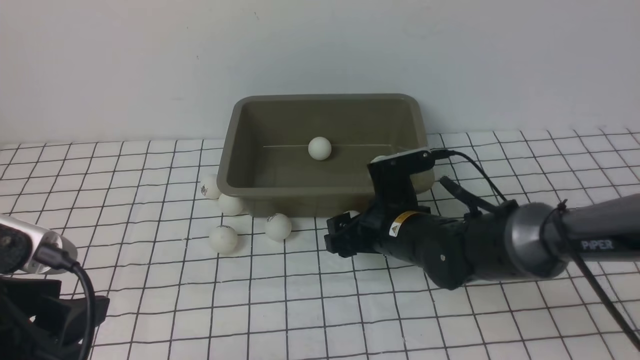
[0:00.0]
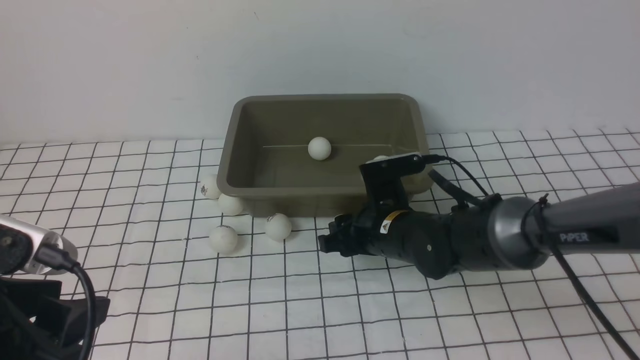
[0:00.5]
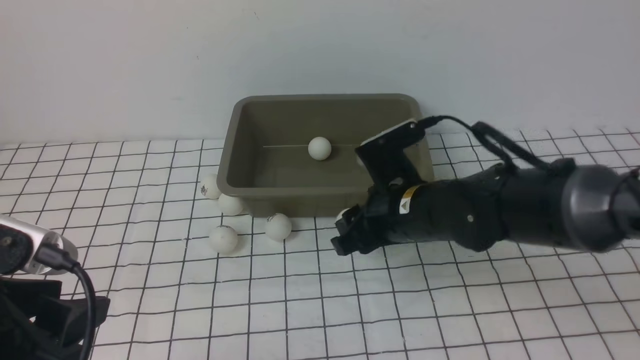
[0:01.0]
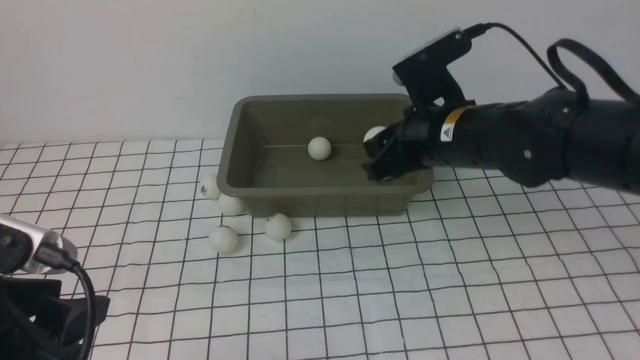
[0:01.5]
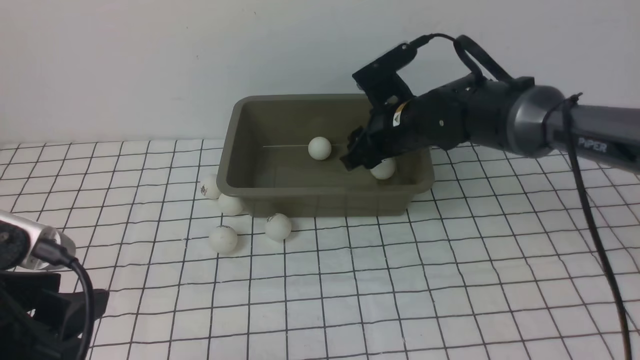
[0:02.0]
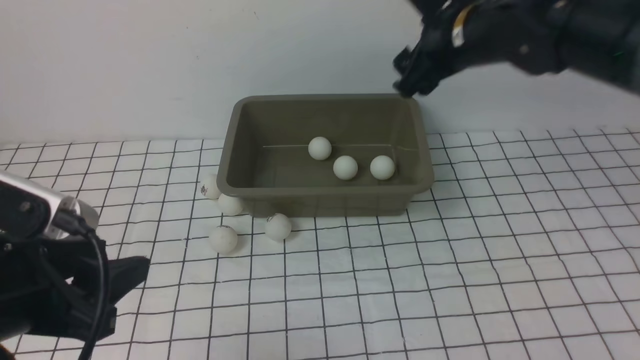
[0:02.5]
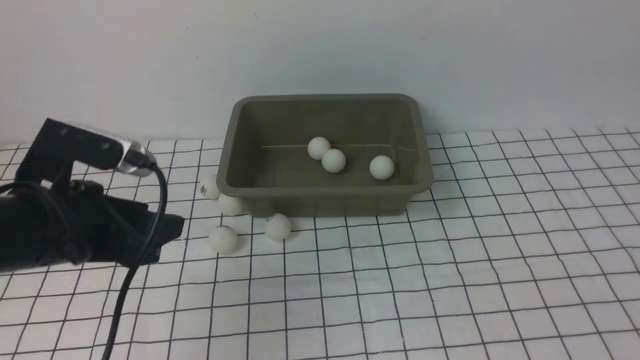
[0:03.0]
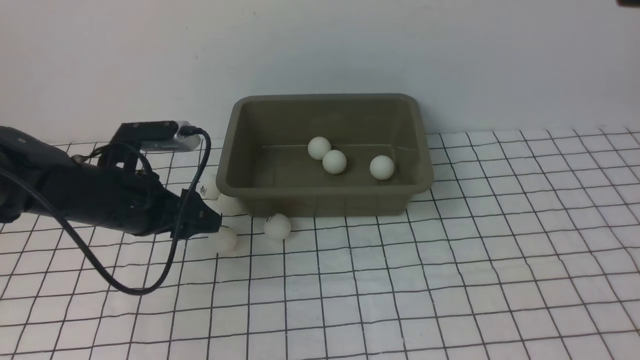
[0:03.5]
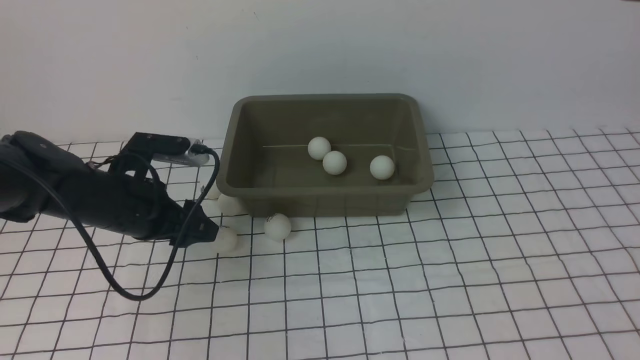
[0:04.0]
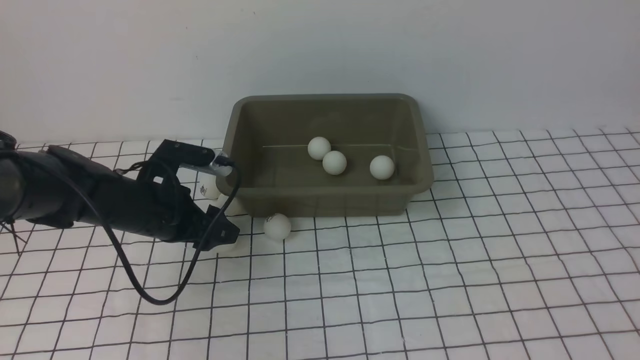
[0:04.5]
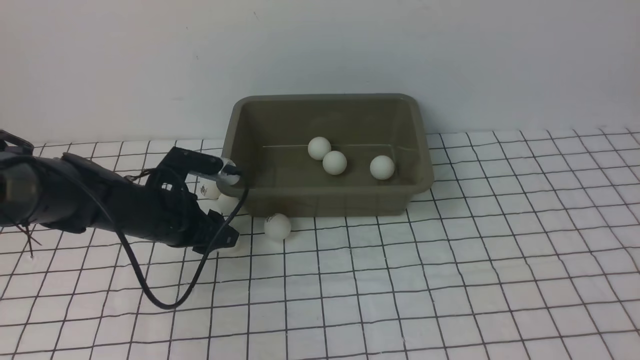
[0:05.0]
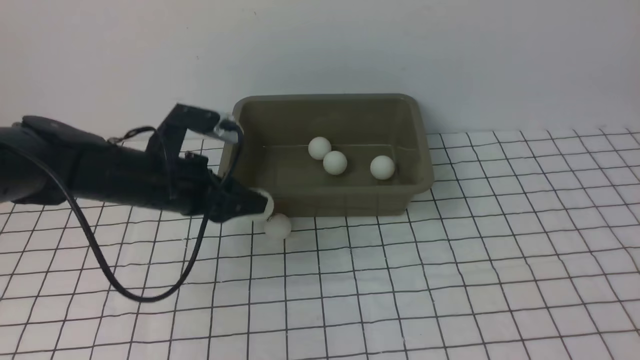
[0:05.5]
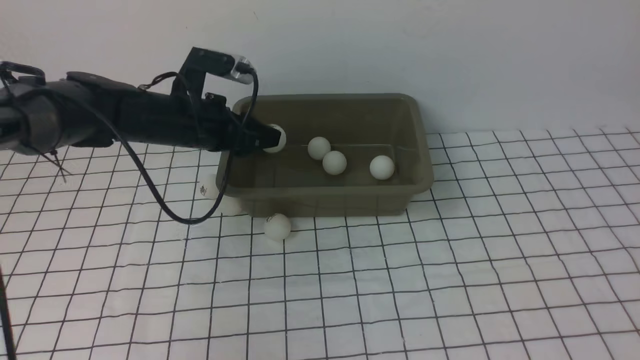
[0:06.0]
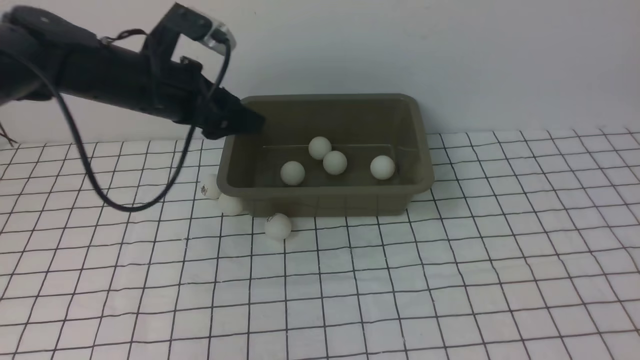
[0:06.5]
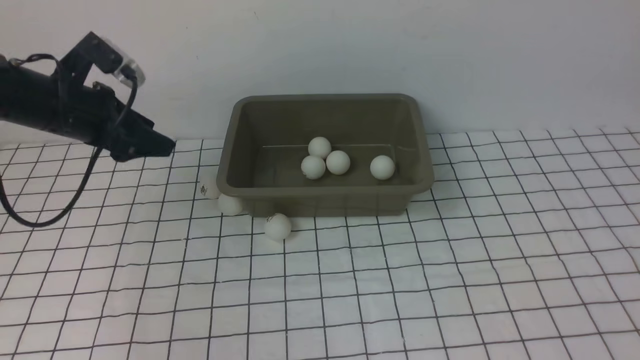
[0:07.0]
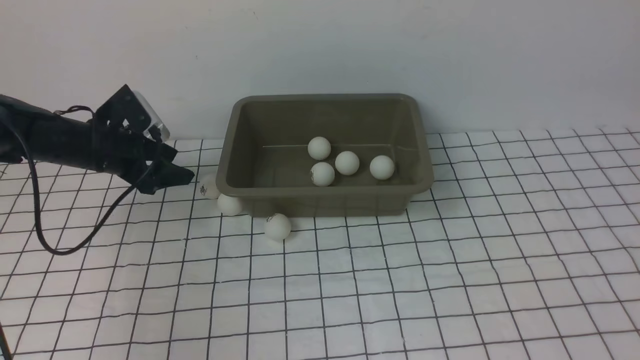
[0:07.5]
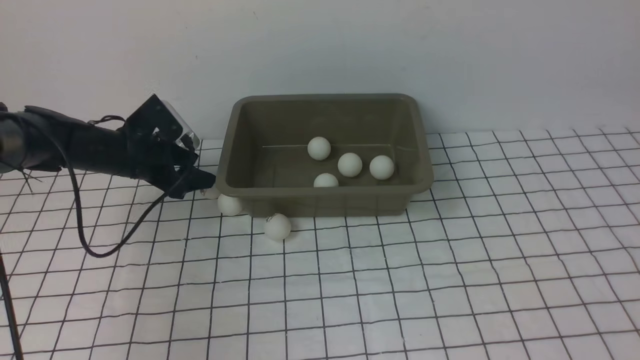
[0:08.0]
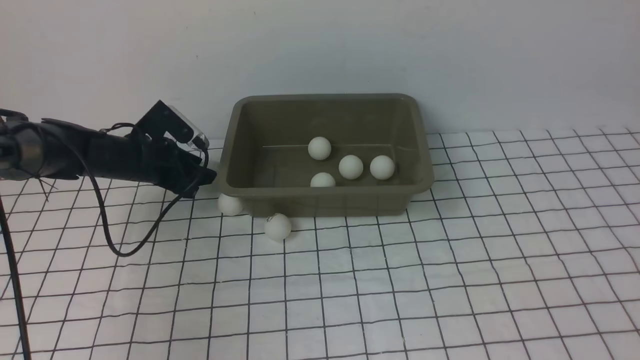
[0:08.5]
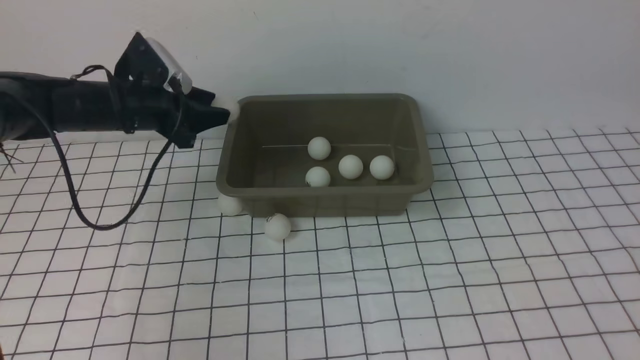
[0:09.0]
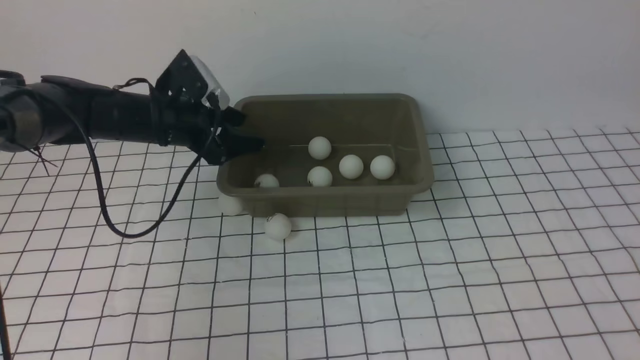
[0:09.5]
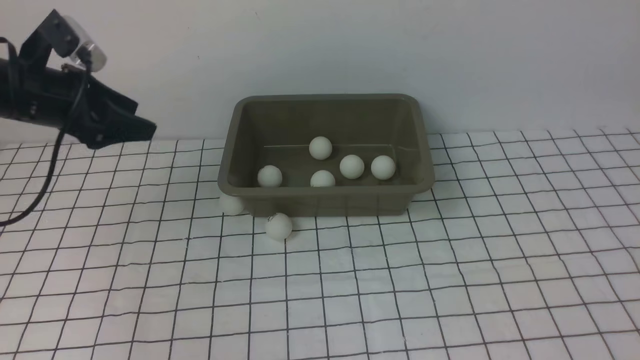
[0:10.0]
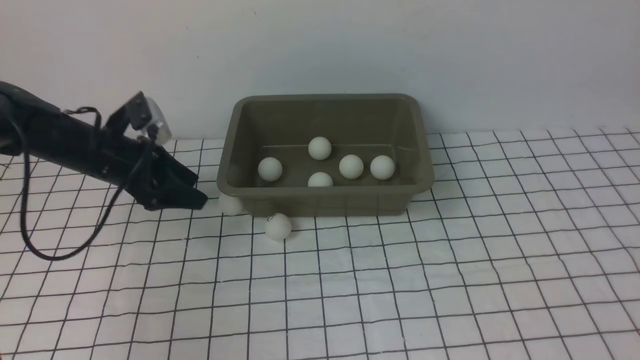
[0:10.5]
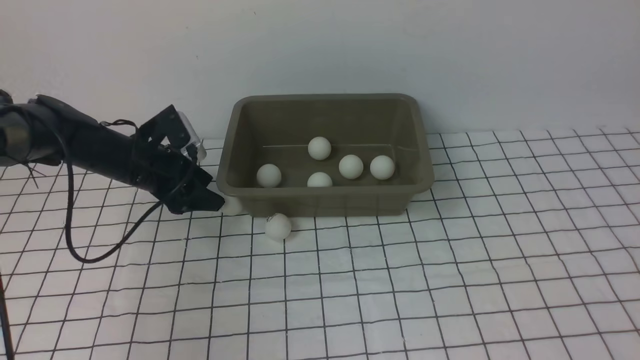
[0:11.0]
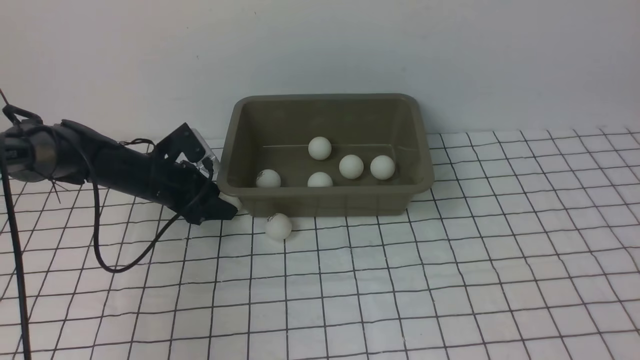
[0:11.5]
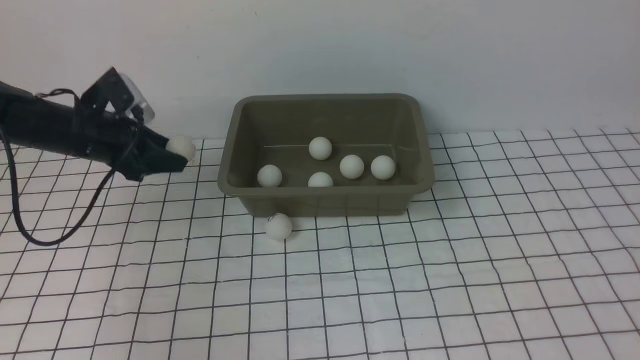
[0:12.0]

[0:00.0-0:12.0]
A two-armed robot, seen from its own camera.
Step, 0:01.0 to 0:02.0: use the right arm to put the table tennis ball into the box.
Step, 0:02.5 to 0:05.5: use the left arm to clamp the table tennis ball closest to it.
Step, 0:06.5 to 0:08.5: use the left arm to clamp the table tennis ball closest to it.
Step, 0:09.0 to 0:09.5: use the left arm to put the table tennis ball into the box.
Step, 0:10.0 to 0:11.5: use the left arm to clamp the table tennis ball closest to it.
0:00.0 to 0:02.0: The right gripper shifts about 15 cm forward and upward, and closes up.
0:02.0 to 0:04.0: The right gripper is displaced upward, backward and to the right by some 40 cm, and opens up. The left gripper travels forward and downward by some 25 cm.
0:04.0 to 0:06.0: The left gripper heads forward and upward, covering some 10 cm.
0:06.0 to 0:08.0: The left gripper travels to the left and downward by about 15 cm.
0:08.0 to 0:10.0: The left gripper moves upward and backward, some 15 cm.
0:10.0 to 0:12.0: The left gripper travels to the right by approximately 10 cm.

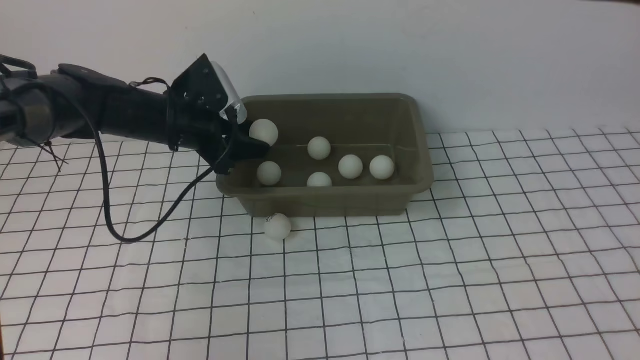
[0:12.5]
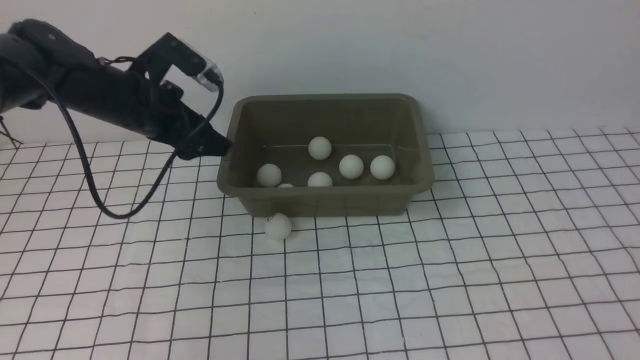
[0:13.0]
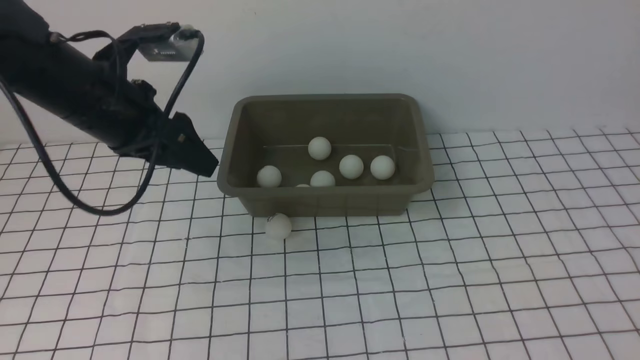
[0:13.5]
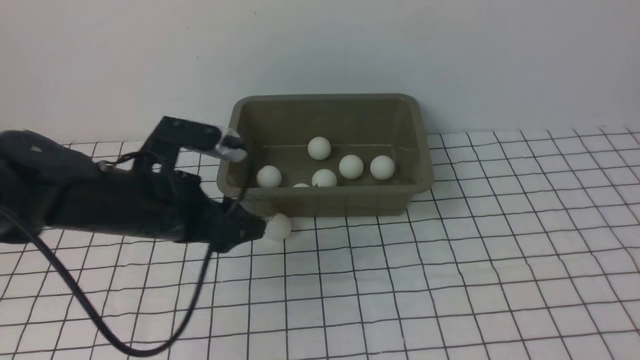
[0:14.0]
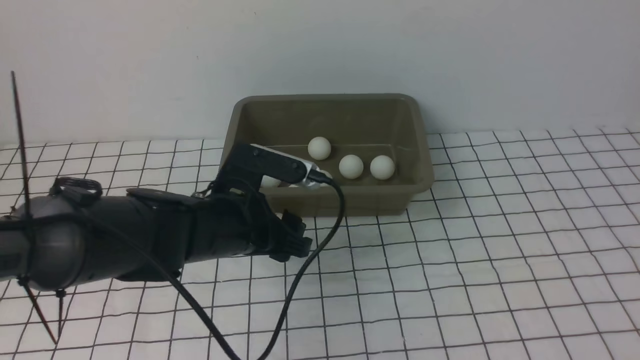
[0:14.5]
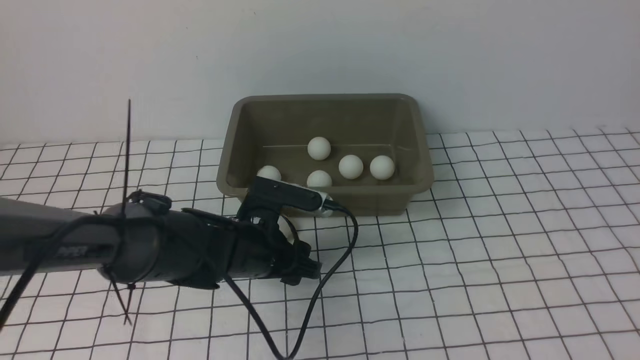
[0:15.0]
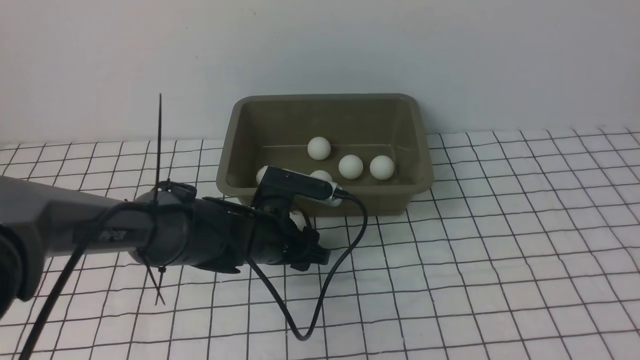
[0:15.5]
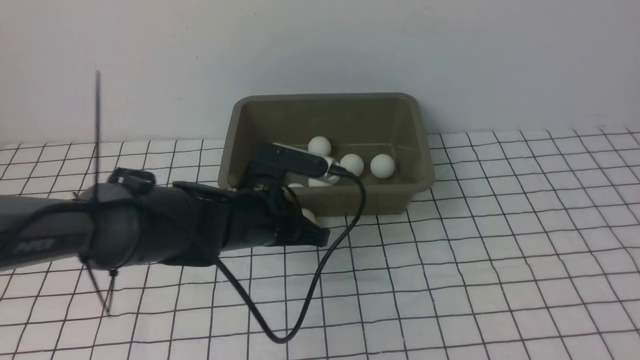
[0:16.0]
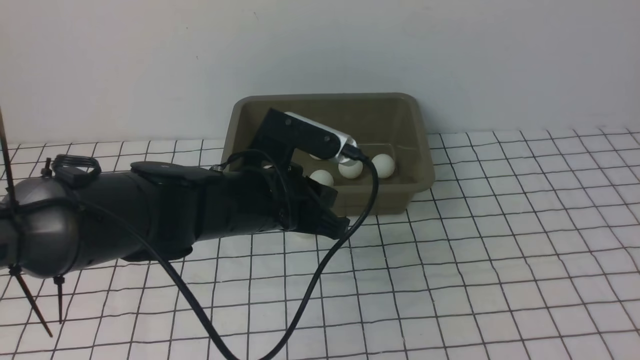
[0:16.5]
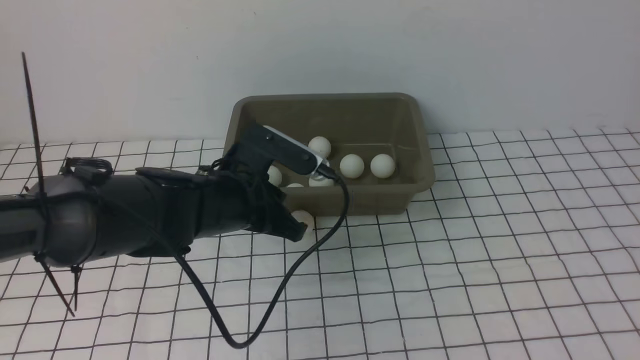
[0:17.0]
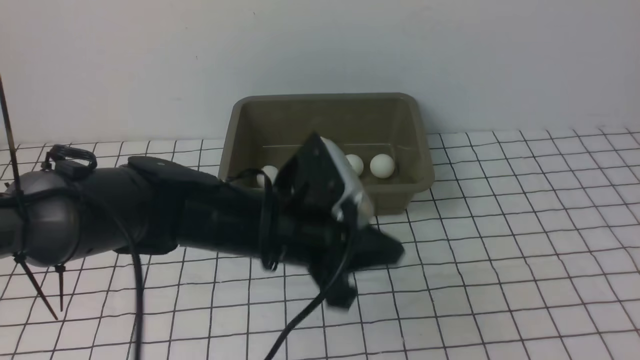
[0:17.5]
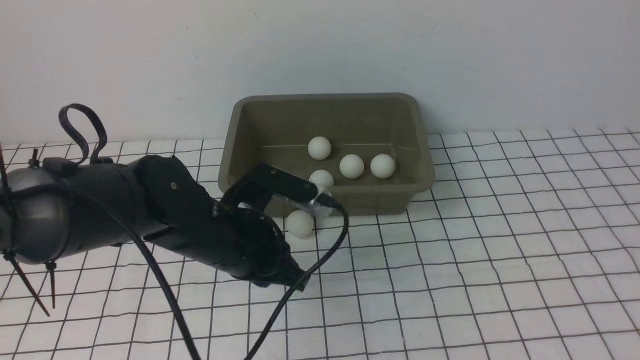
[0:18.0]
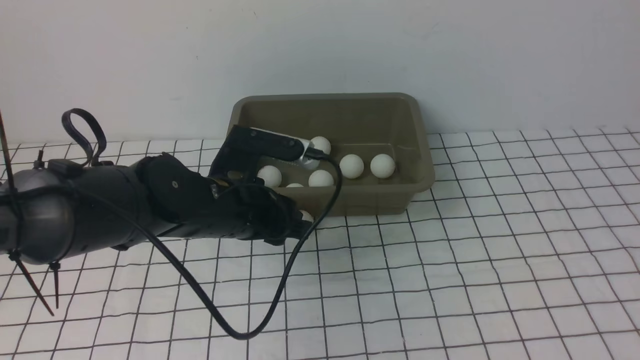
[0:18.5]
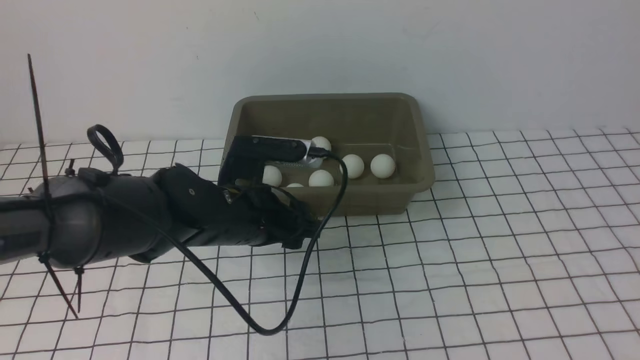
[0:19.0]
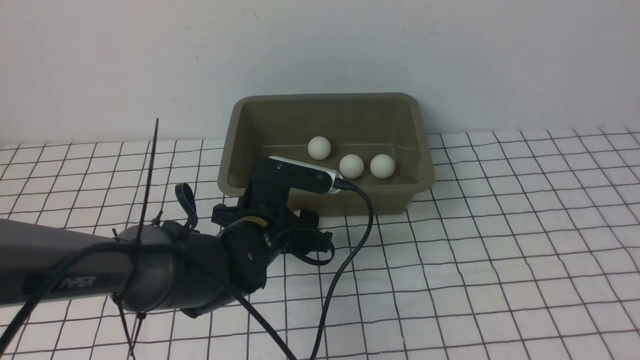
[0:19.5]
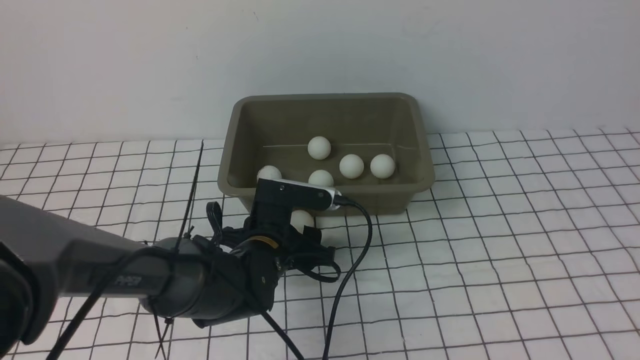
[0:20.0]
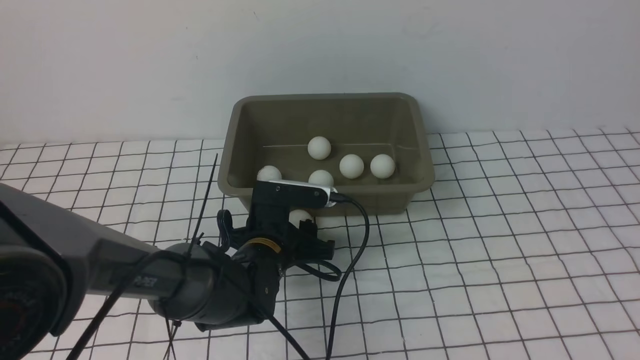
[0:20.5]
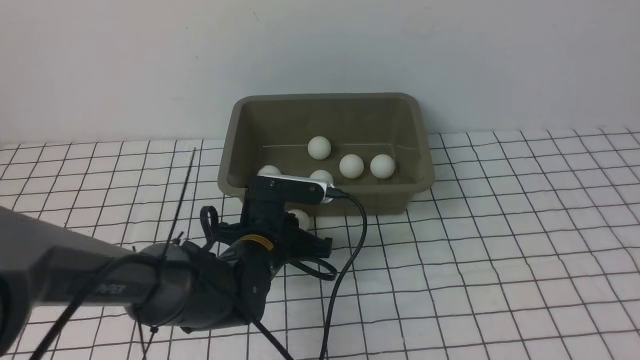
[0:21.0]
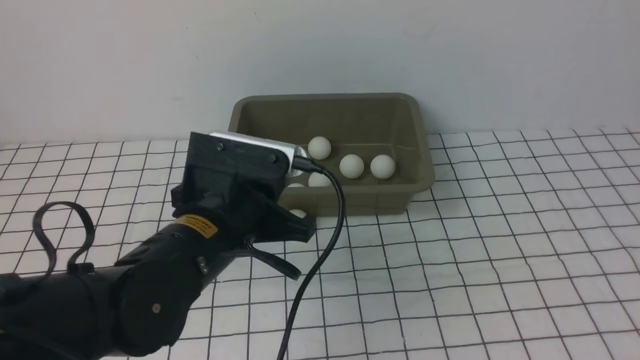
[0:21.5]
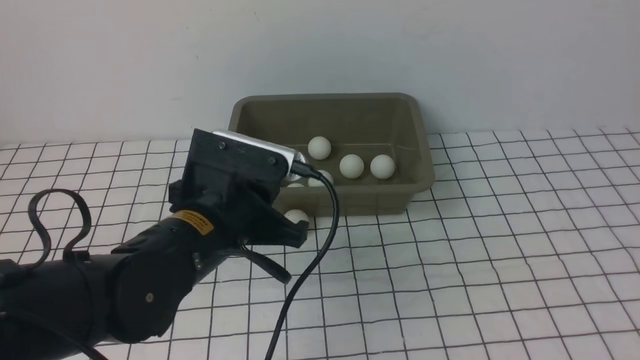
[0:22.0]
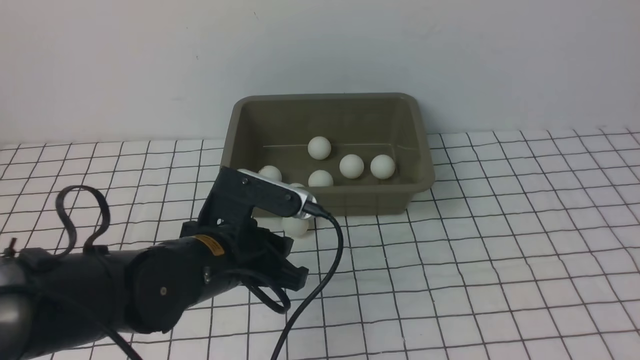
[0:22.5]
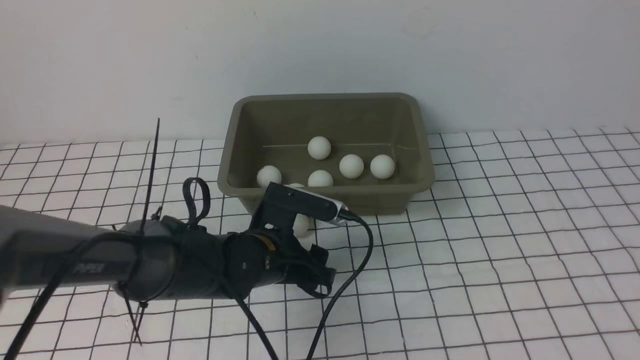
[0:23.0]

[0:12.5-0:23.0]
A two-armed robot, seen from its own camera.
0:12.5 to 0:14.5: The left gripper goes about 20 cm to the right, backward and downward. The right gripper ends up roughly 5 cm from where it was.
0:14.5 to 0:16.5: The left gripper travels upward by approximately 5 cm, and closes its fingers.
0:16.5 to 0:19.0: The left gripper opens its fingers.
0:19.0 to 0:21.0: The left gripper closes up.
0:21.0 to 0:23.0: The left gripper moves approximately 10 cm upward and comes back, and opens its fingers.
